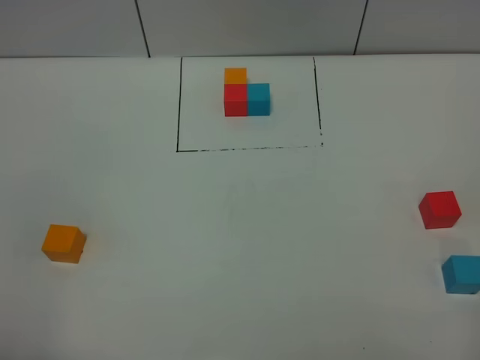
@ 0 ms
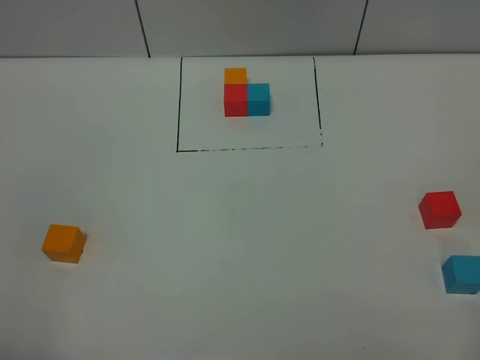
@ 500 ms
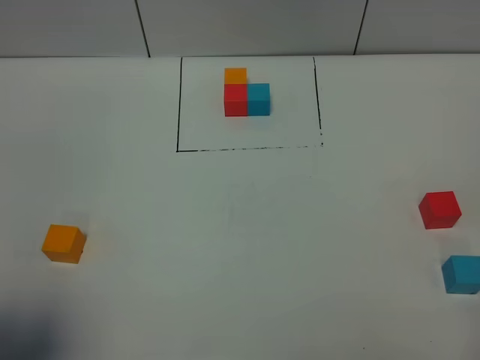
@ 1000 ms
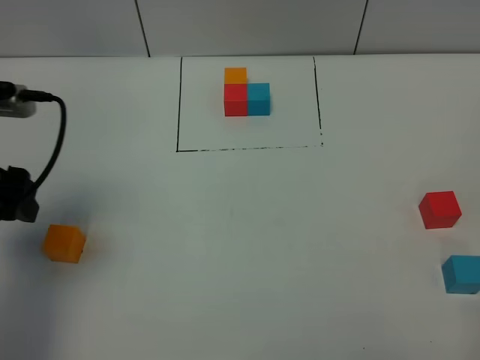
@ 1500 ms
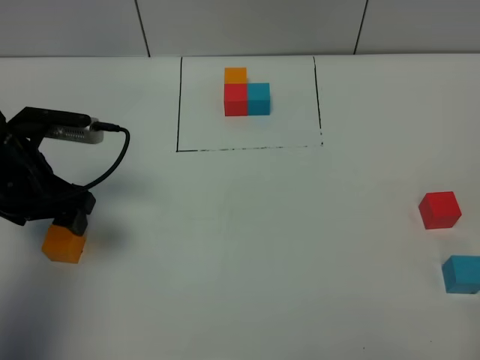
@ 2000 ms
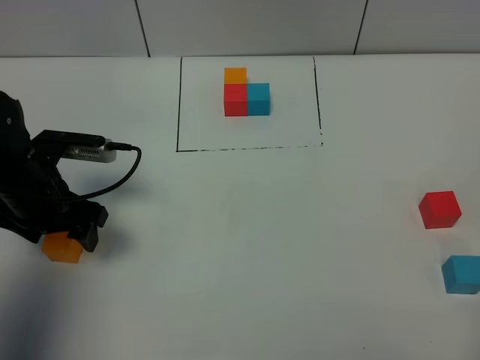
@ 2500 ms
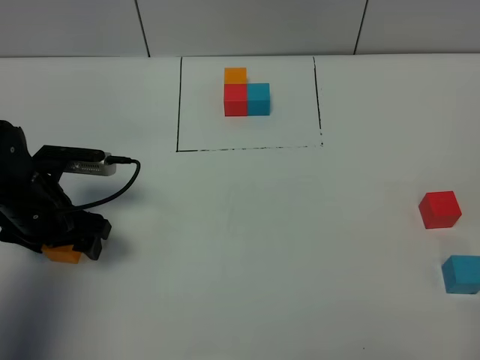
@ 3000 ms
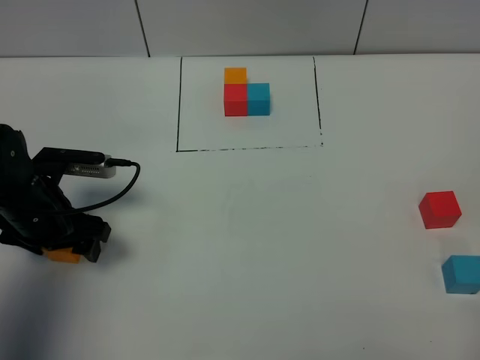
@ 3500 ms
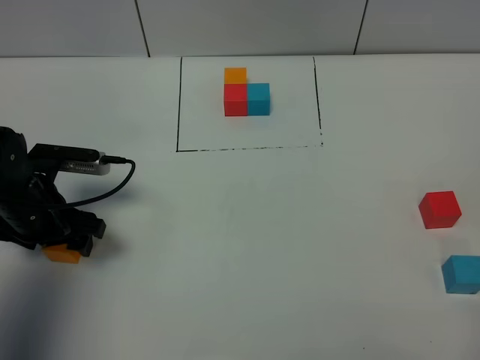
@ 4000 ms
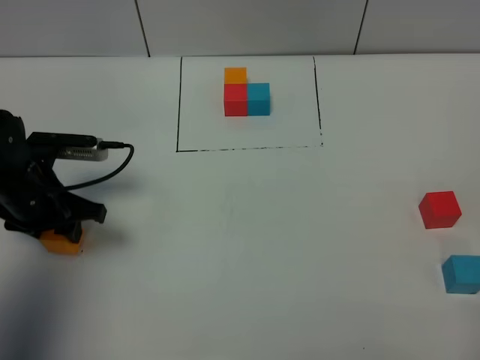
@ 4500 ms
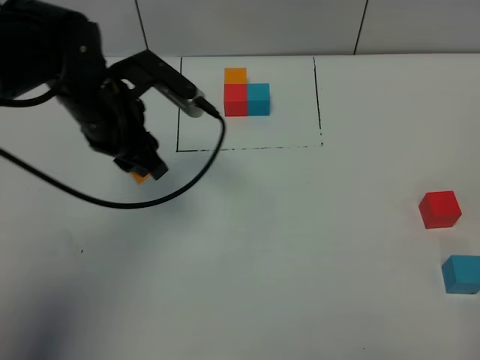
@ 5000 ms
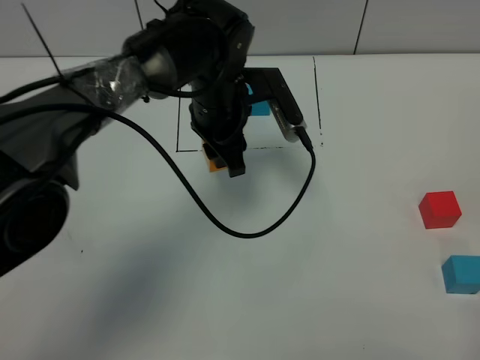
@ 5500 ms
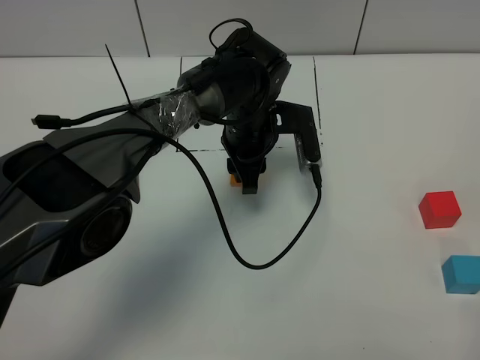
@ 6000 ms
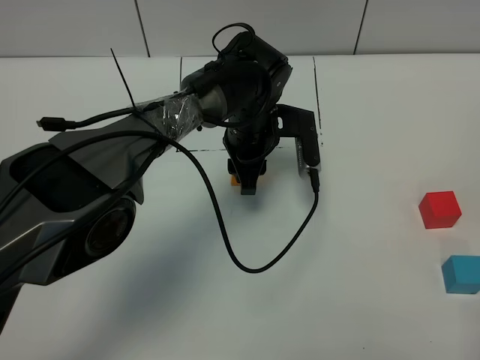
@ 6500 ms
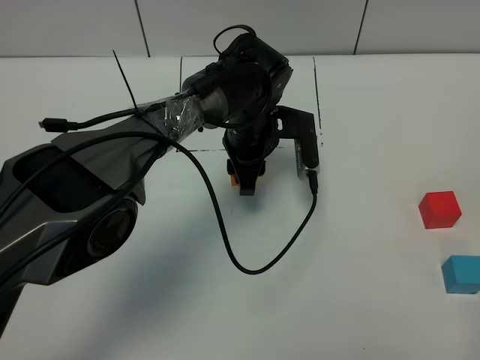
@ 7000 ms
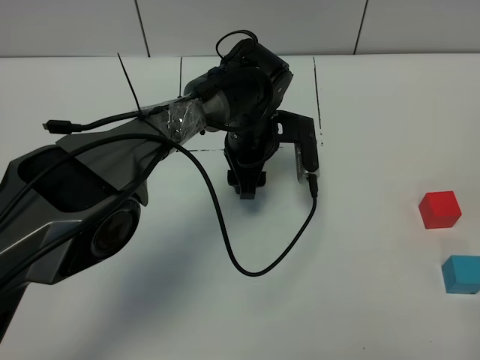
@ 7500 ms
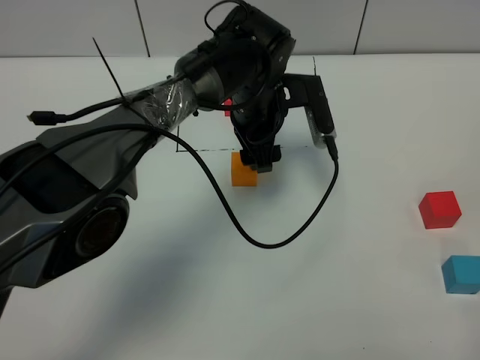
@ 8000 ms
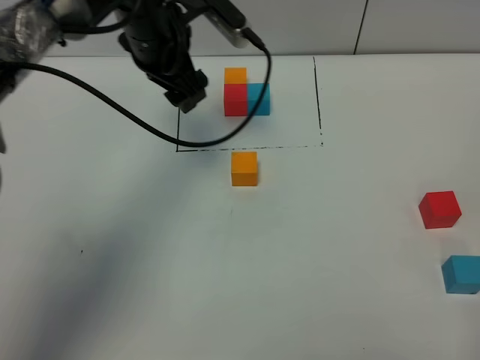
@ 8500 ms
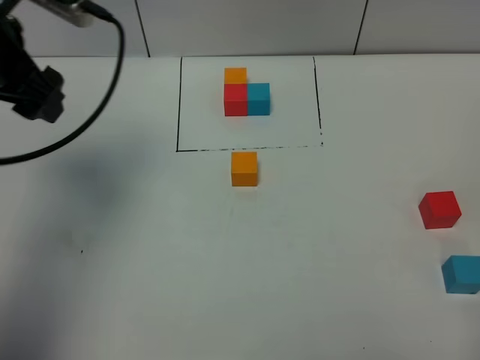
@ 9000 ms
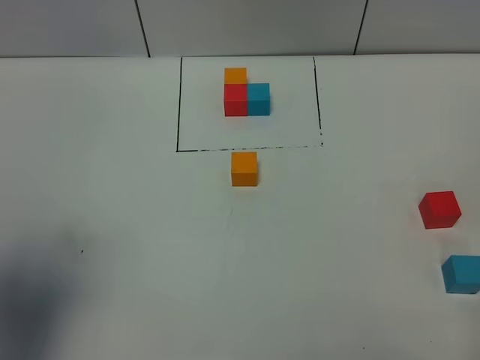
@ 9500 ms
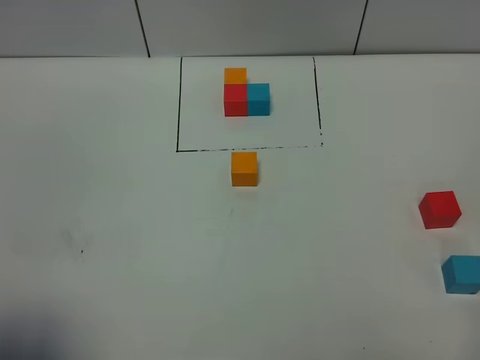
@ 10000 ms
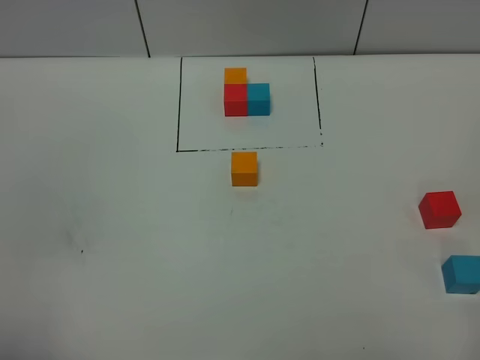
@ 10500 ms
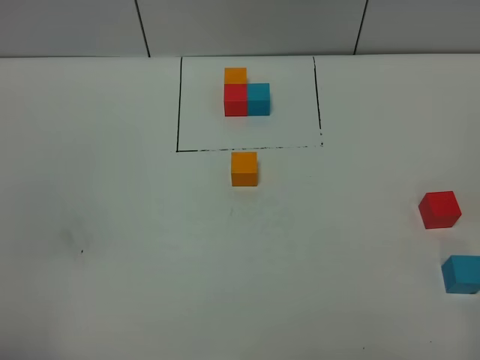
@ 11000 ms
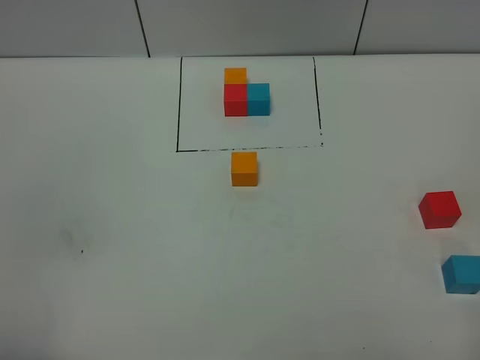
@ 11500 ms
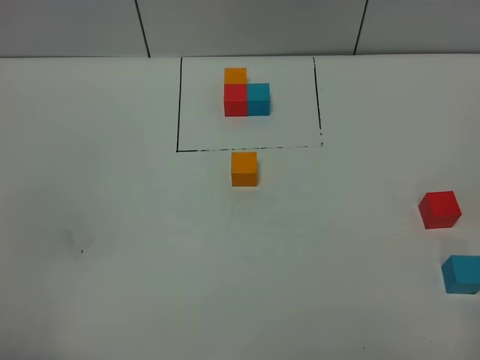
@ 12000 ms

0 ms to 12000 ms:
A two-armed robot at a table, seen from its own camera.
Task of the whole recording: According to the building block template in front, assemble the scattered blocks together.
Step, 0 ms to 7000 ms: Put the yellow build block in the center of the table.
0 ms to 2000 ms: The left gripper goes some 30 cm forward.
2000 ms to 4000 ms: The left gripper shifts some 5 cm downward.
4000 ms to 6000 ms: The left gripper heads to the right and forward, covering roughly 30 cm, and closes its fingers.
6000 ms to 8000 ms: The left gripper opens its fingers.
8000 ms to 10000 ms: The left gripper travels backward and to the left by approximately 50 cm.
10000 ms to 12000 ms: The left gripper ends up about 5 cm from where it was.

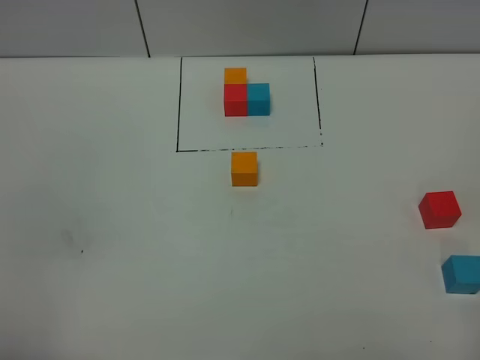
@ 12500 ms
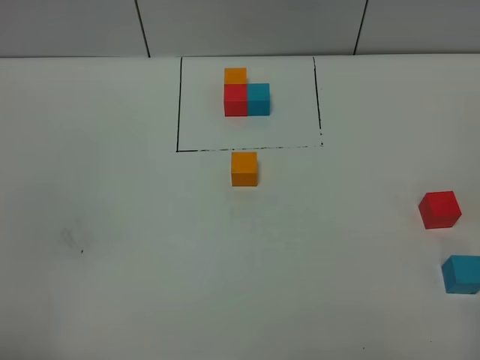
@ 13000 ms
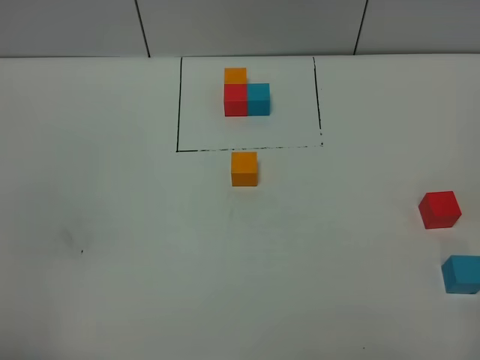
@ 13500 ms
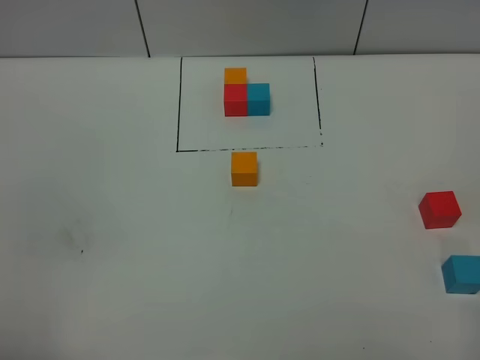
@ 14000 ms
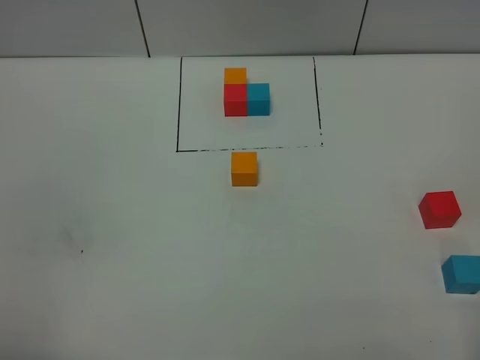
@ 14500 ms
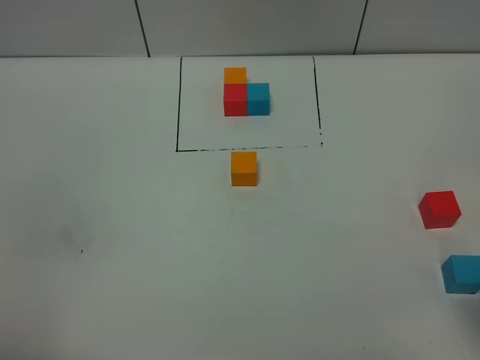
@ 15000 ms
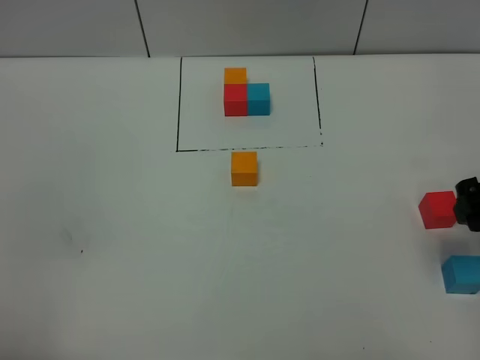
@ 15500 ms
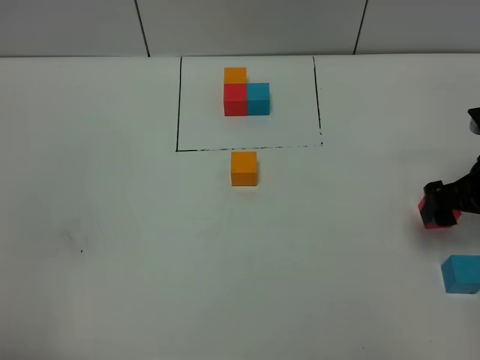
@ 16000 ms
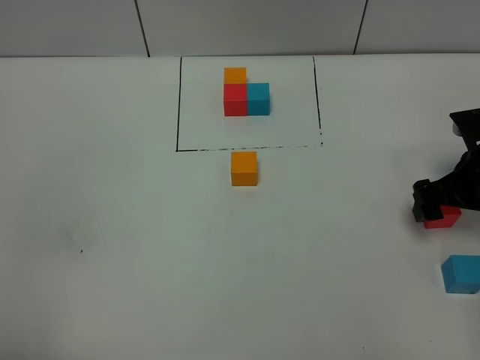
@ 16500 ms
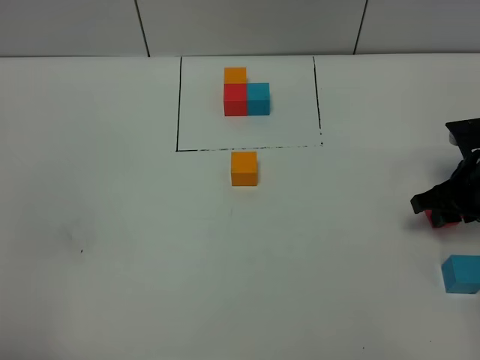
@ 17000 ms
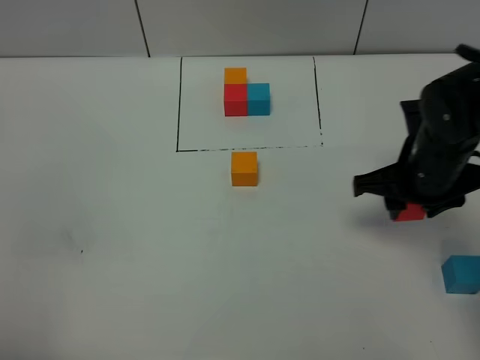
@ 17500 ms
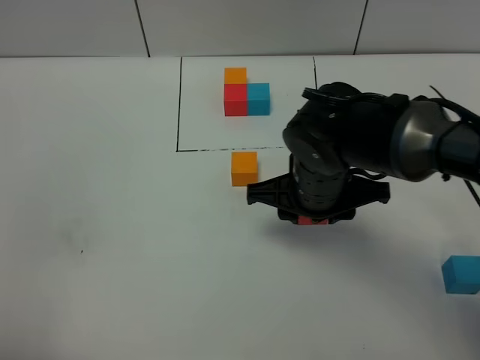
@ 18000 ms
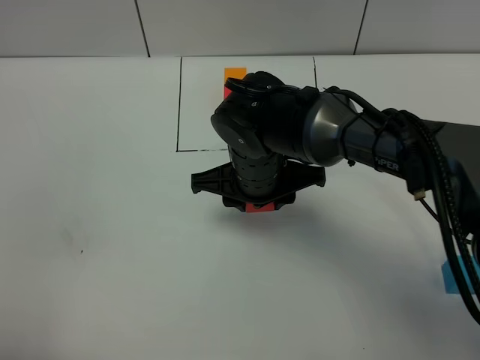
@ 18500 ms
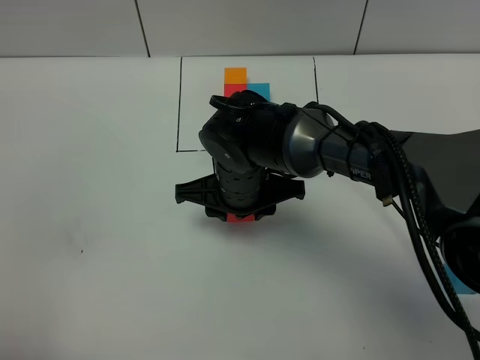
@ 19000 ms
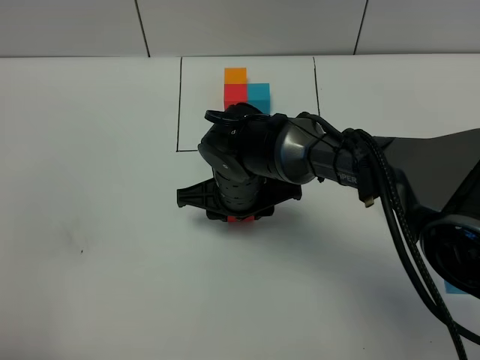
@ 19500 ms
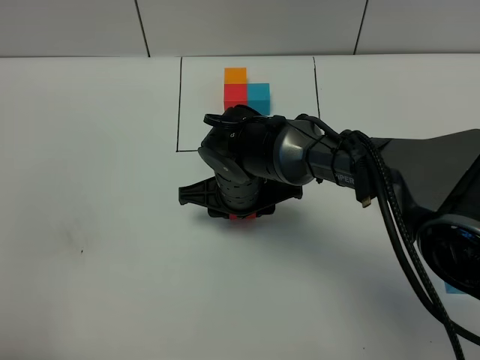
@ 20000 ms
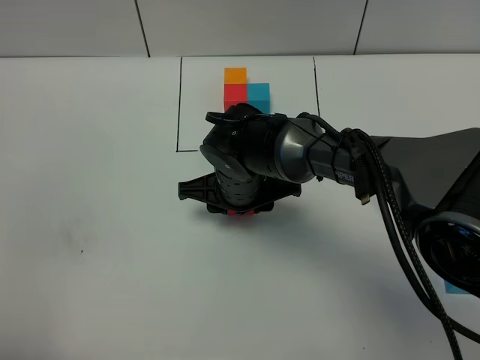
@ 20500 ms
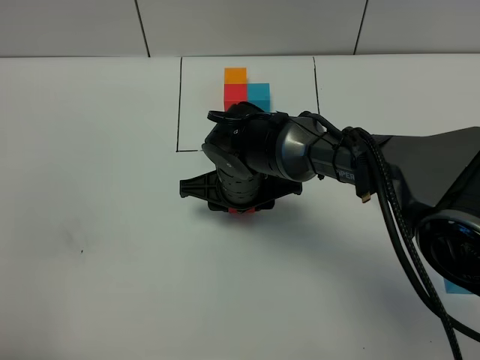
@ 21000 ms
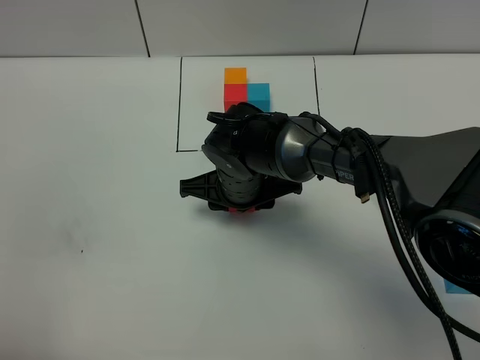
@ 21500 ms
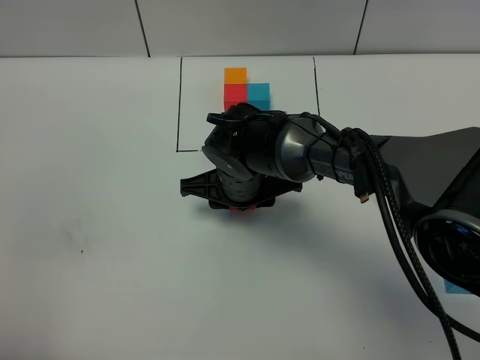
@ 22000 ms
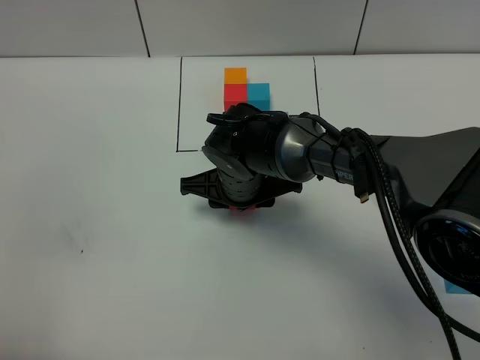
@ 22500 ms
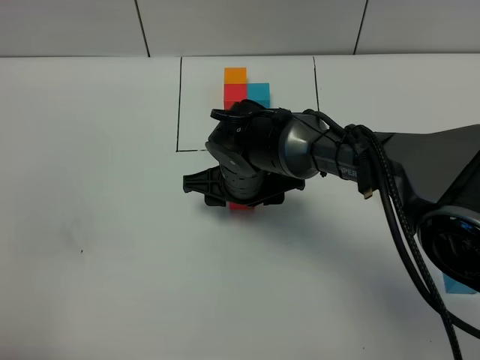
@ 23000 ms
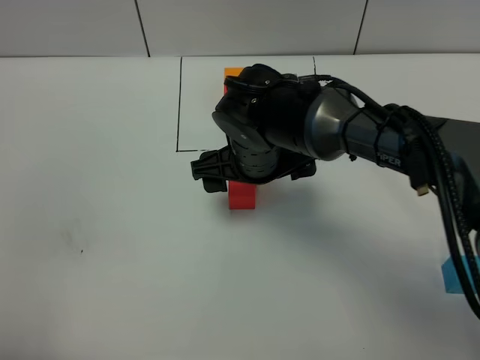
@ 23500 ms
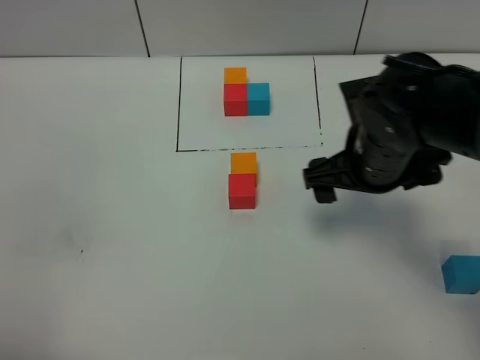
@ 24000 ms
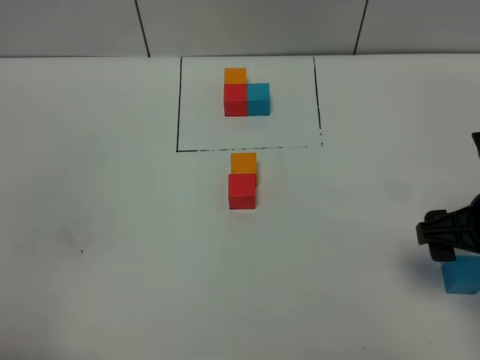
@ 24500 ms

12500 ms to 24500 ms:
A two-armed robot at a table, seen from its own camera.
Task of the whole recording: According to the building block template in front, assemble the scattered blocks together.
Step, 12500 ms to 23000 ms: Put the red build block on the behind of the yellow build block.
14500 ms to 16500 ms: The right gripper moves forward and downward, approximately 30 cm.
16500 ms to 18500 ms: The right gripper is displaced to the left by approximately 30 cm, and closes its fingers.
18500 ms to 20500 ms: The right gripper shifts by some 5 cm.
20500 ms to 22500 ms: Neither gripper changes place.
22500 ms to 24500 ms: The right gripper travels to the right and backward by roughly 30 cm, and opens its fingers.

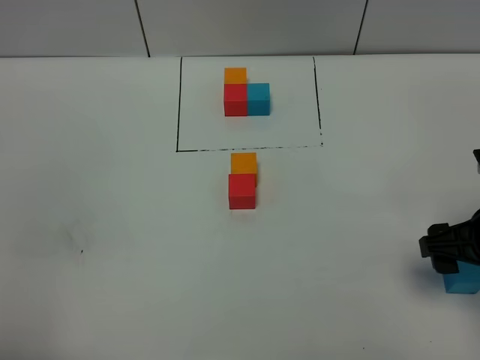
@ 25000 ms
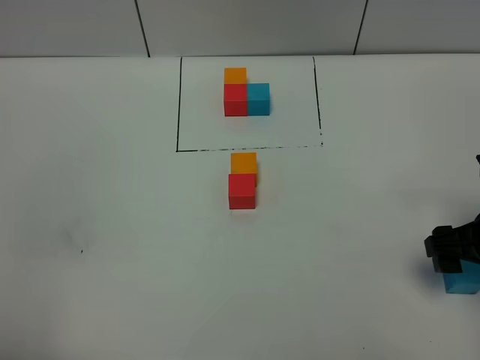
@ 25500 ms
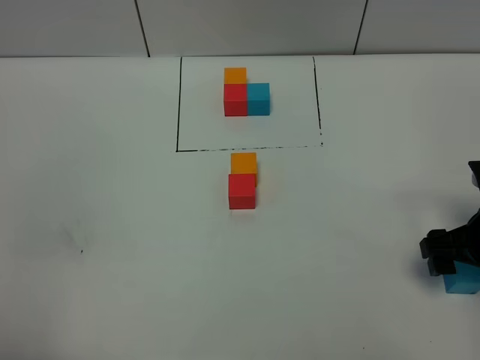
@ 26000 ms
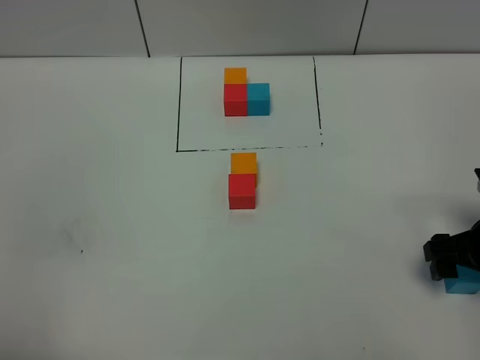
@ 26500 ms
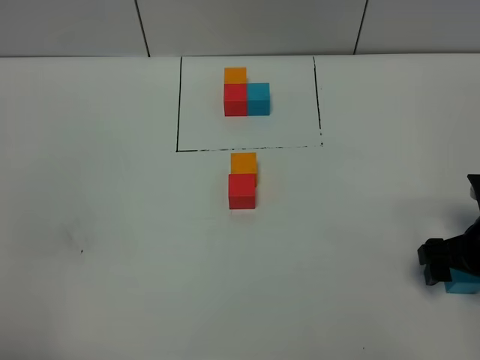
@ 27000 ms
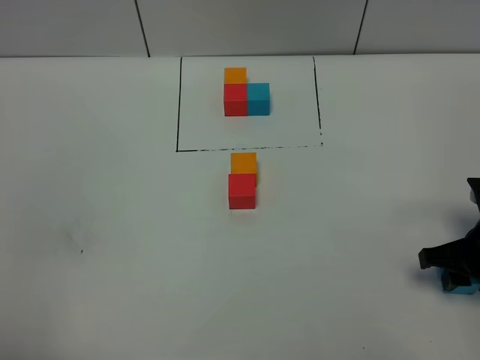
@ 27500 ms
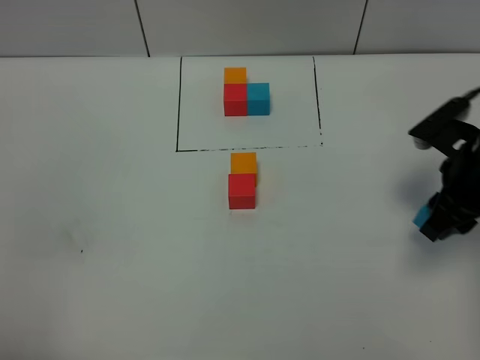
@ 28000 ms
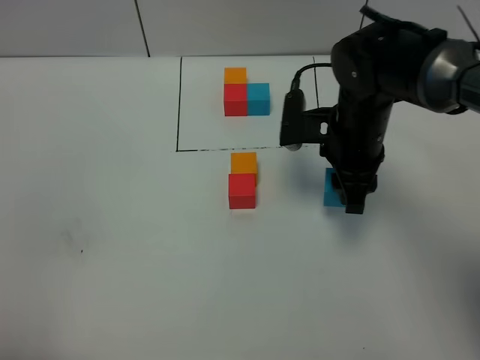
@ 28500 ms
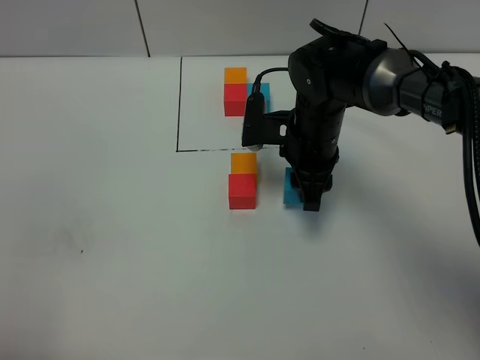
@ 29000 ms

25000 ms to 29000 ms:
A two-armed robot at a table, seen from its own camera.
Task of the whole recording: According to the building block template in front, assemble the scattered blocks together.
25000 ms to 27000 ms: The right gripper shifts about 5 cm downward.
27000 ms to 29000 ms: The right gripper shifts roughly 25 cm to the left and forward, and closes its fingers.
